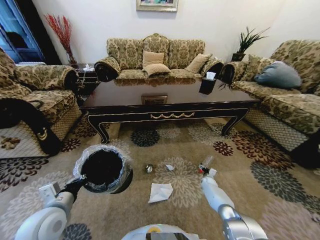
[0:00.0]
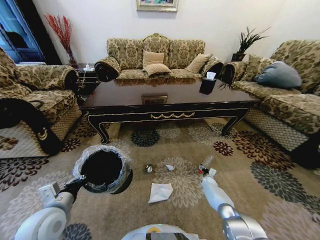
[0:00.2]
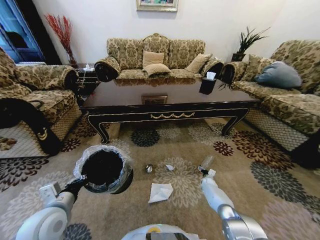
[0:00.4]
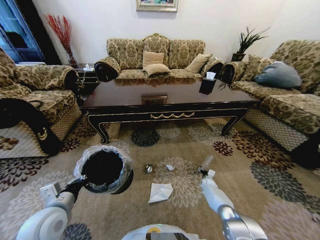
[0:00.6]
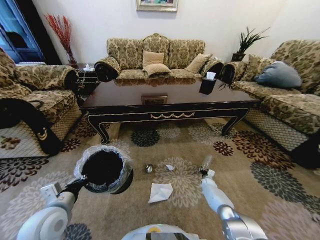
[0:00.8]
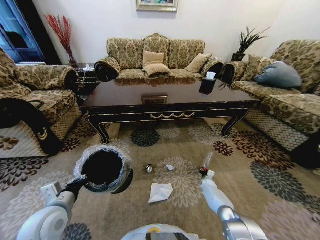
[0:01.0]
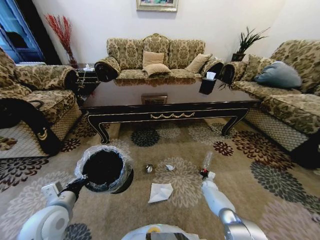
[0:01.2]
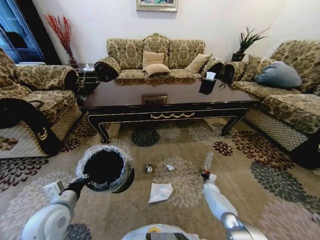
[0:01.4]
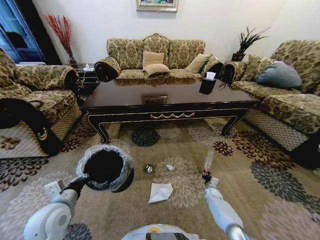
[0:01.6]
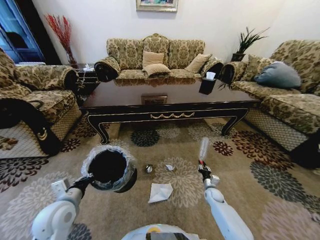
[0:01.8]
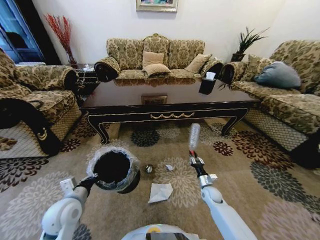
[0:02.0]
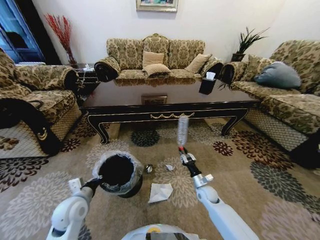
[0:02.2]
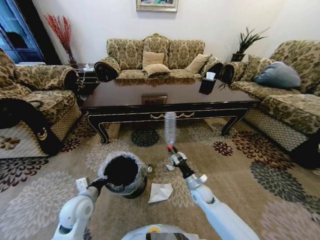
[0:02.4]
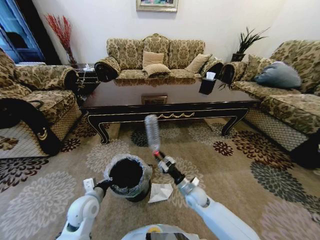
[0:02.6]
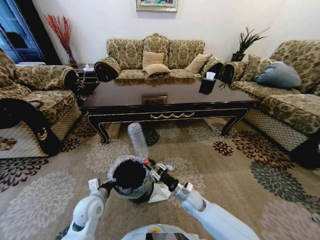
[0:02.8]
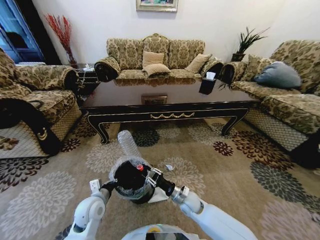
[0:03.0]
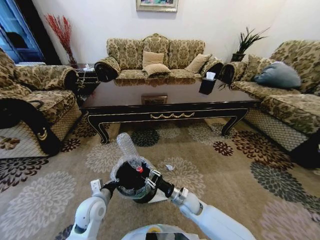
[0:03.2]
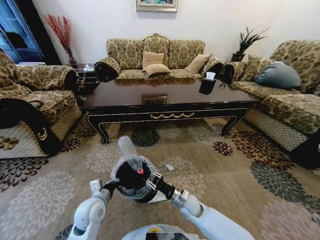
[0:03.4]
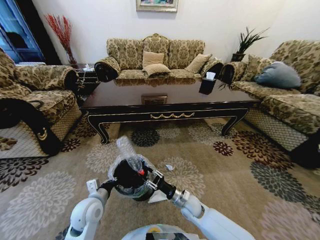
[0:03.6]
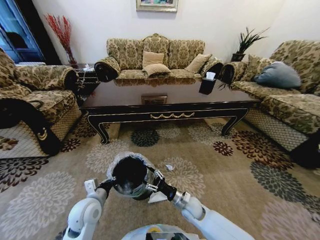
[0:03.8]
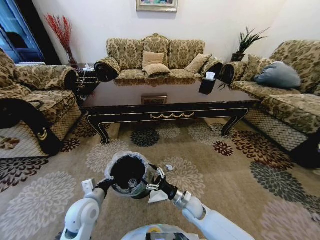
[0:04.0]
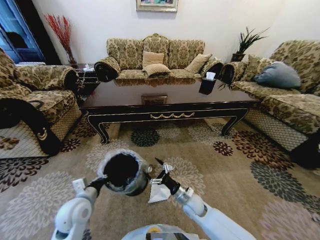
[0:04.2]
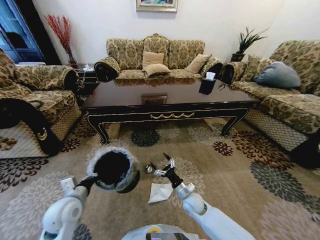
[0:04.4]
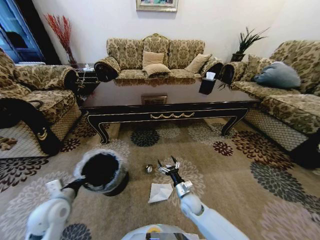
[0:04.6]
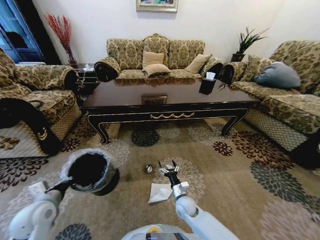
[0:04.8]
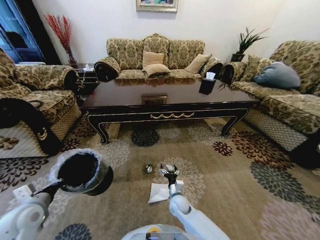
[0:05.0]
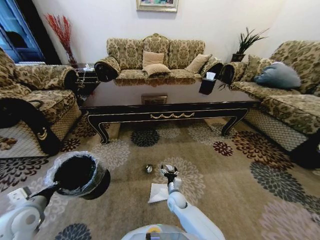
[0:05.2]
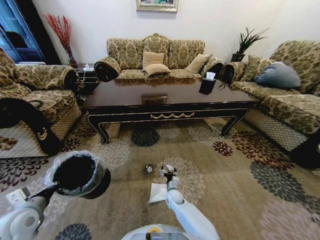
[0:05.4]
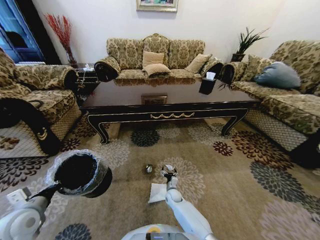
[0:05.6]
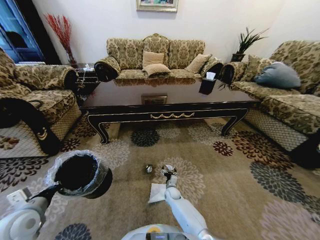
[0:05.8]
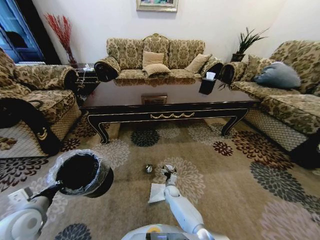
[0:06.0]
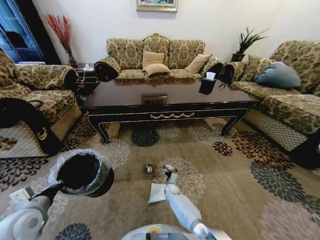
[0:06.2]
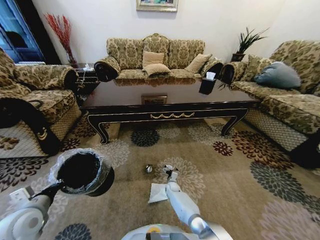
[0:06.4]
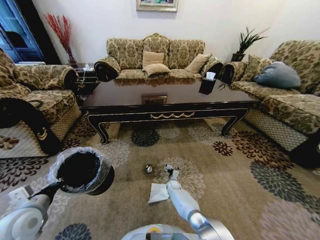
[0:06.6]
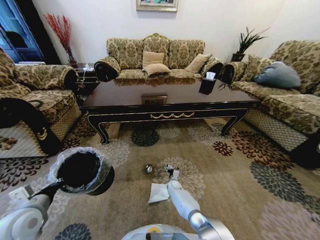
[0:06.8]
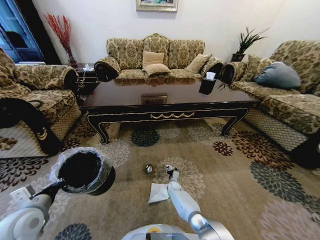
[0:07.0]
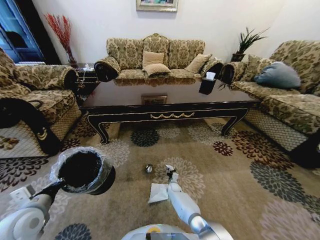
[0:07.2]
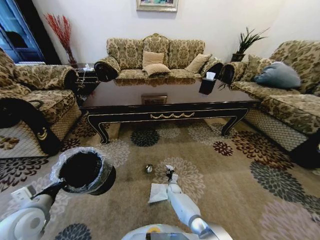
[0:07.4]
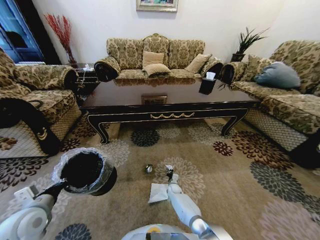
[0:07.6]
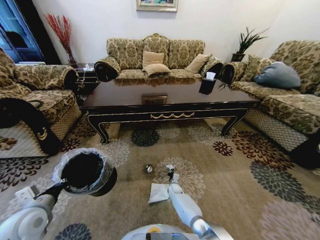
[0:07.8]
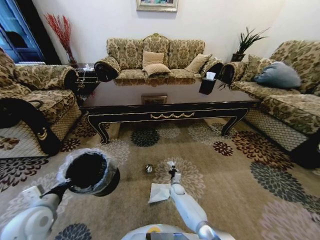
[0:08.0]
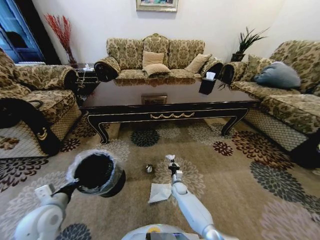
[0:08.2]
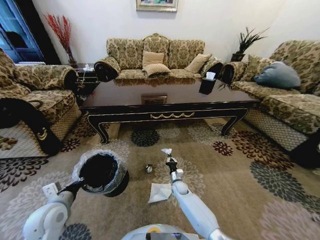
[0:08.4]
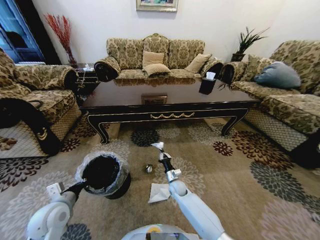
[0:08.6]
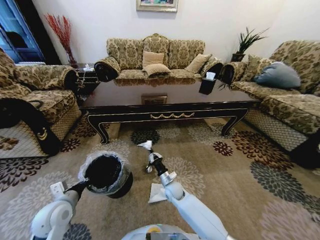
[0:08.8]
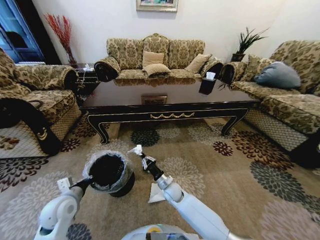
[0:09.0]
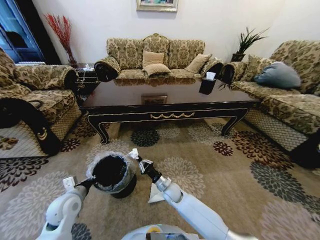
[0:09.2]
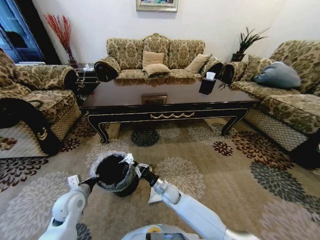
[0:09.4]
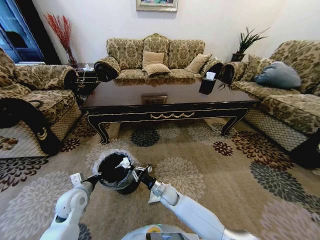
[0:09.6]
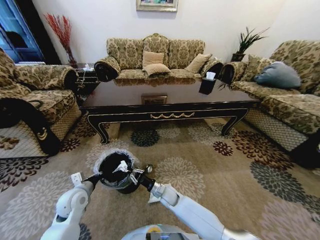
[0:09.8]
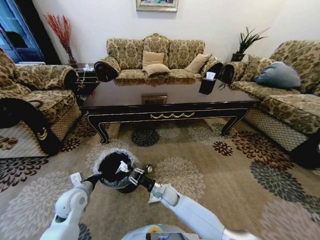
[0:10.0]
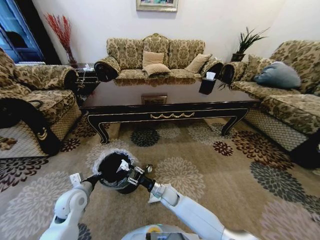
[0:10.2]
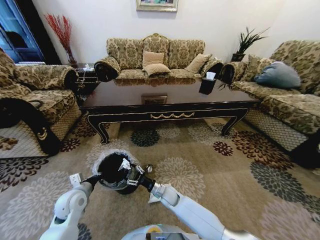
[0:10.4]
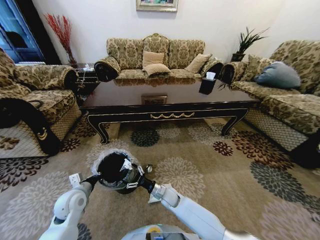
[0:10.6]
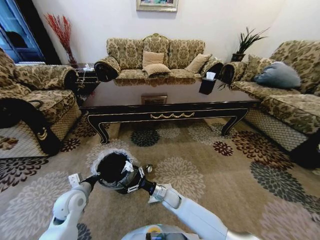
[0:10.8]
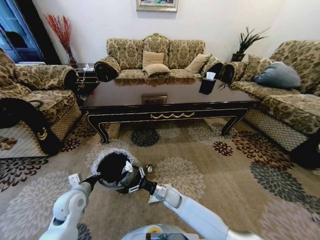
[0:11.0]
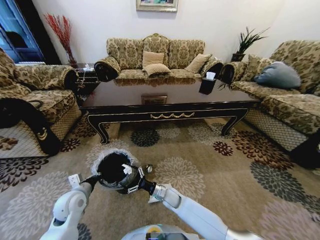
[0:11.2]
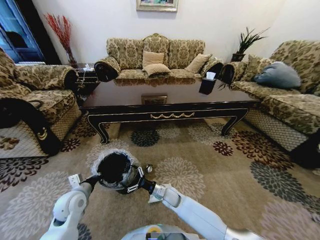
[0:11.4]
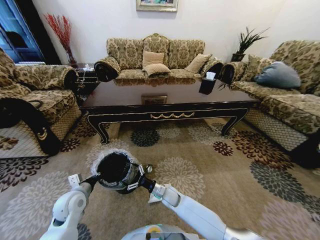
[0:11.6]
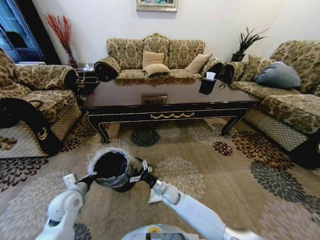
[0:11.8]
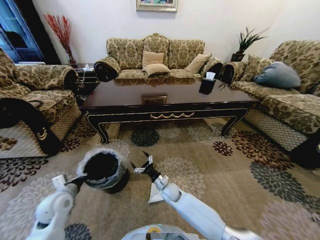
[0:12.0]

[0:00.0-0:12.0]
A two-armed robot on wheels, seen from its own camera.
Task of the whole recording: Move to the front of the table and pick up the trash from the floor, then place it into the trash bin.
0:00.0 to 0:01.6: The right gripper shifts about 5 cm backward, and closes.
0:01.6 to 0:03.0: The right gripper travels to the left, upward and backward by approximately 30 cm, while the left gripper travels downward and to the right by some 10 cm.
0:03.0 to 0:04.4: The left gripper travels to the left and upward by about 10 cm. Meanwhile the right gripper opens.
0:04.4 to 0:06.0: The left gripper shifts about 10 cm to the left. Meanwhile the right gripper moves downward, forward and to the left, roughly 20 cm.
0:06.0 to 0:07.6: The right gripper closes.
0:07.6 to 0:09.0: The left gripper shifts by approximately 10 cm. The right gripper is displaced upward by roughly 15 cm.
0:09.0 to 0:10.4: The right gripper opens its fingers.
0:10.4 to 0:12.0: The left gripper moves approximately 5 cm.

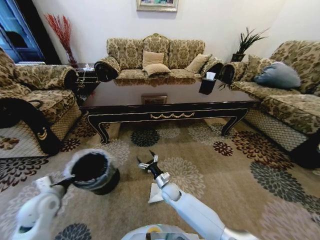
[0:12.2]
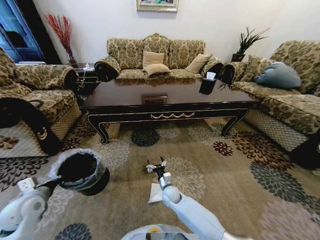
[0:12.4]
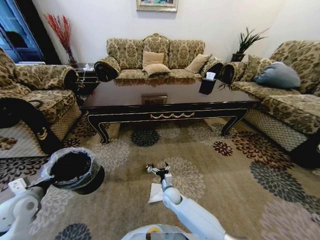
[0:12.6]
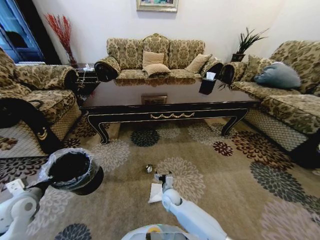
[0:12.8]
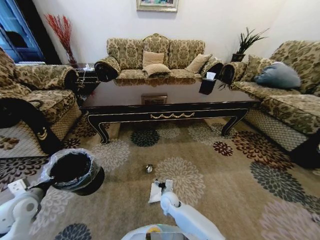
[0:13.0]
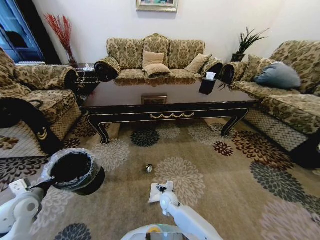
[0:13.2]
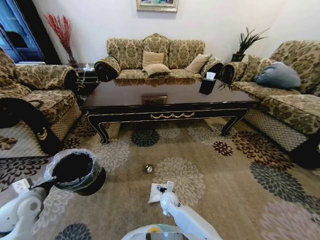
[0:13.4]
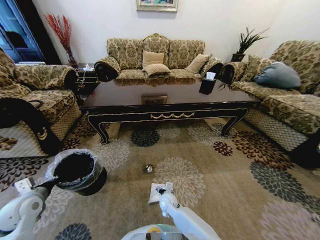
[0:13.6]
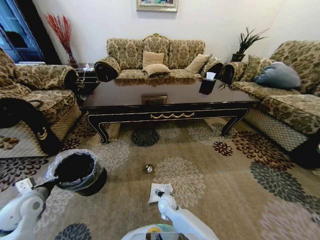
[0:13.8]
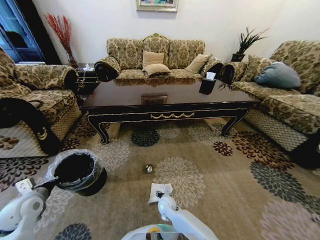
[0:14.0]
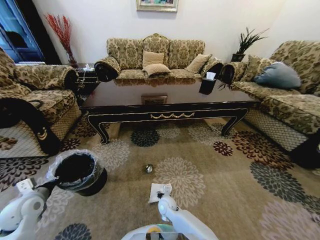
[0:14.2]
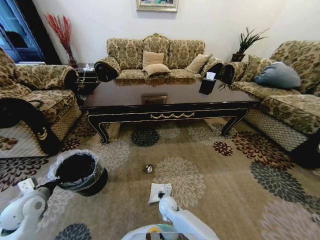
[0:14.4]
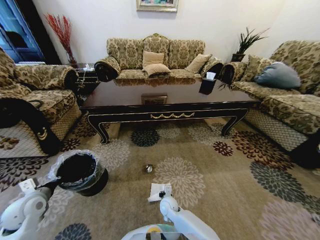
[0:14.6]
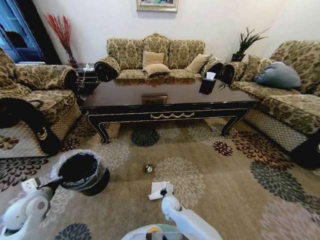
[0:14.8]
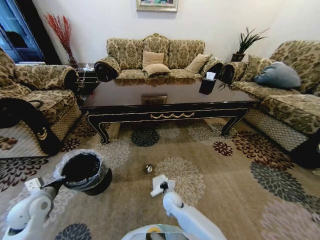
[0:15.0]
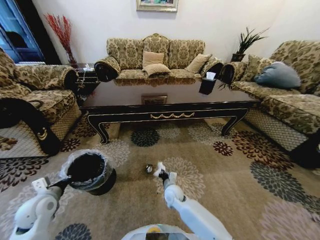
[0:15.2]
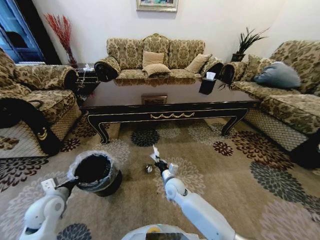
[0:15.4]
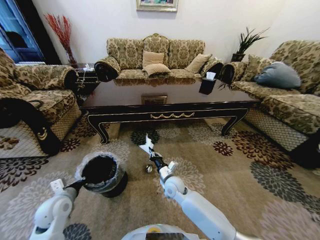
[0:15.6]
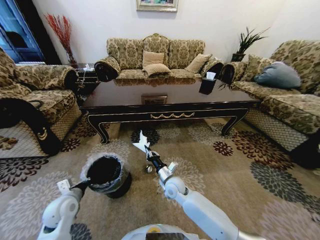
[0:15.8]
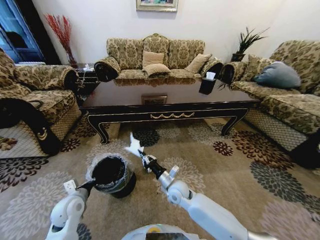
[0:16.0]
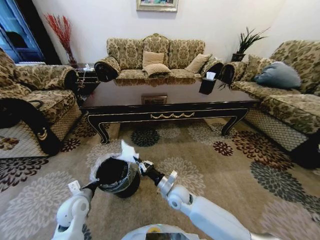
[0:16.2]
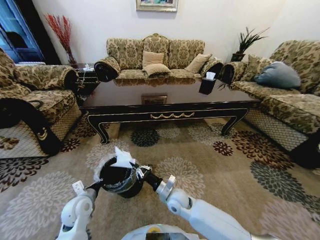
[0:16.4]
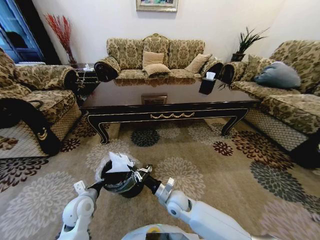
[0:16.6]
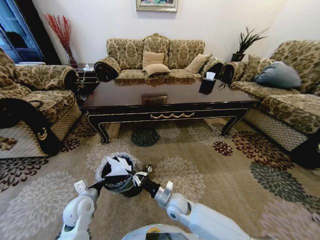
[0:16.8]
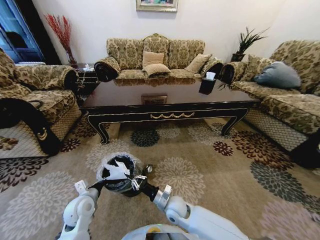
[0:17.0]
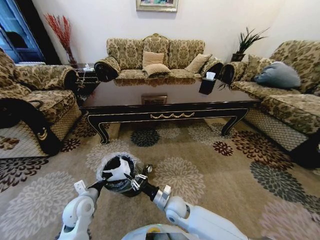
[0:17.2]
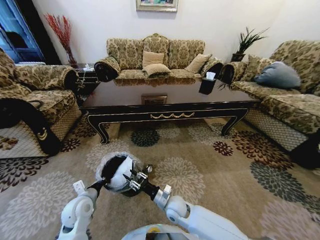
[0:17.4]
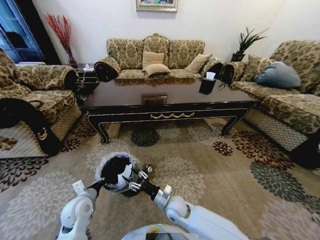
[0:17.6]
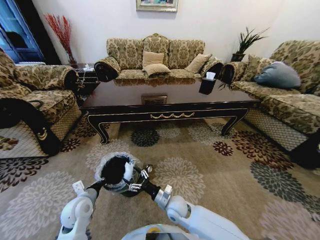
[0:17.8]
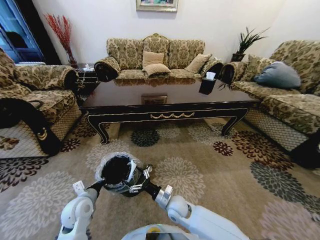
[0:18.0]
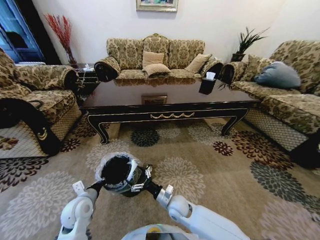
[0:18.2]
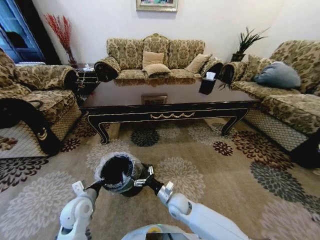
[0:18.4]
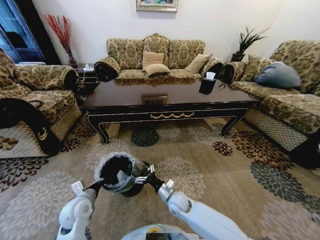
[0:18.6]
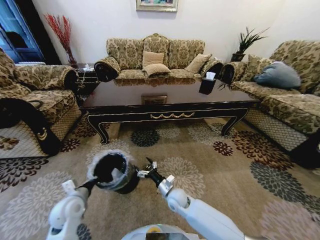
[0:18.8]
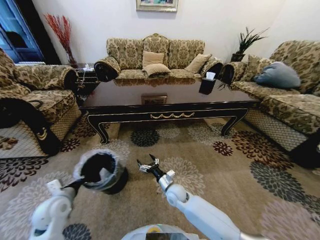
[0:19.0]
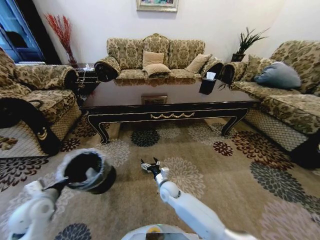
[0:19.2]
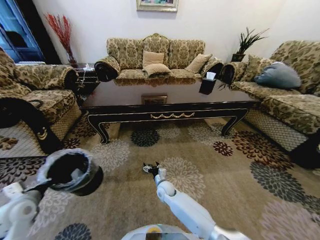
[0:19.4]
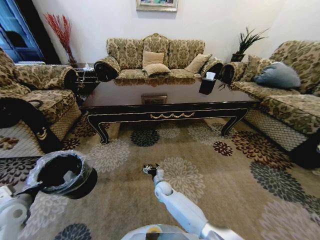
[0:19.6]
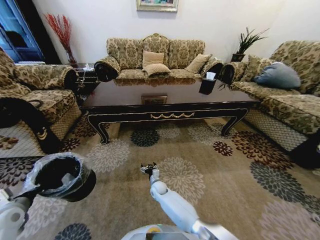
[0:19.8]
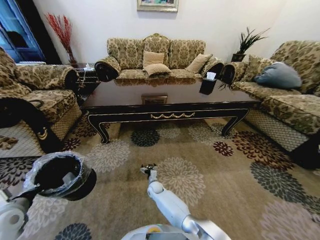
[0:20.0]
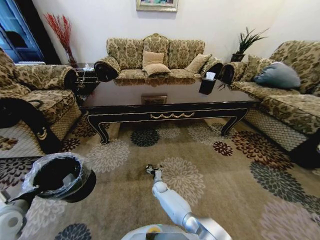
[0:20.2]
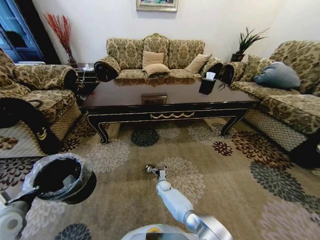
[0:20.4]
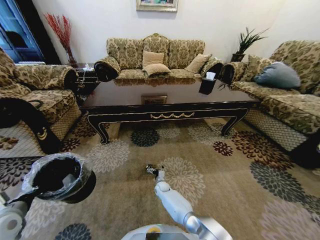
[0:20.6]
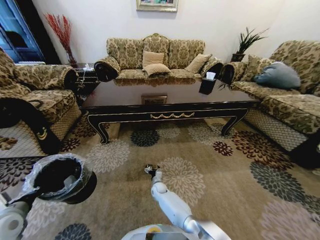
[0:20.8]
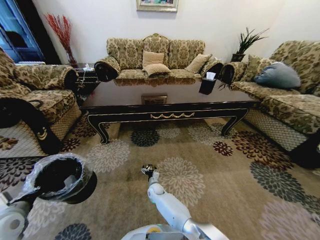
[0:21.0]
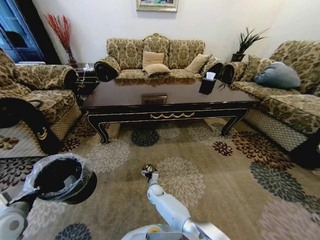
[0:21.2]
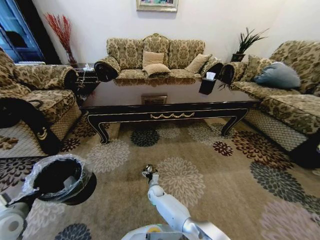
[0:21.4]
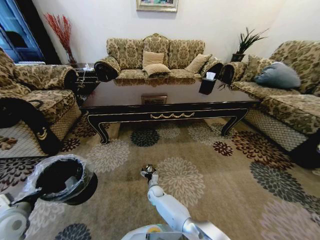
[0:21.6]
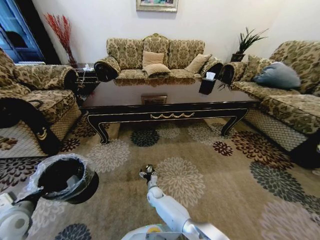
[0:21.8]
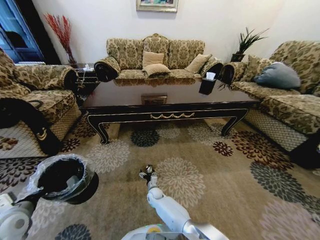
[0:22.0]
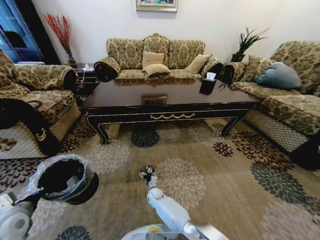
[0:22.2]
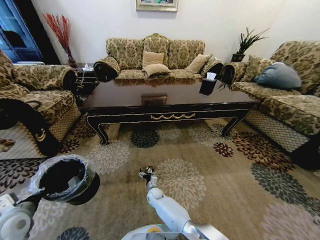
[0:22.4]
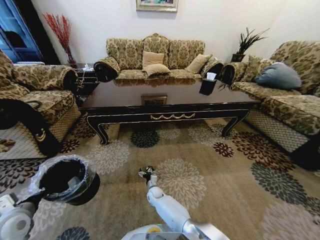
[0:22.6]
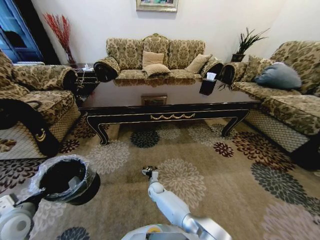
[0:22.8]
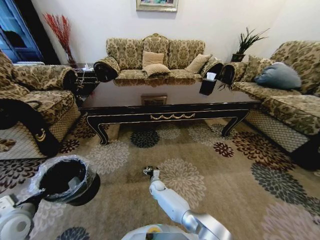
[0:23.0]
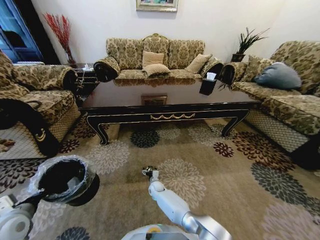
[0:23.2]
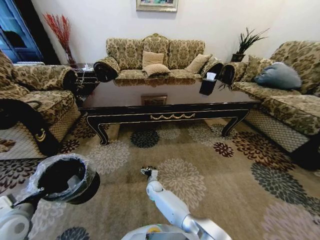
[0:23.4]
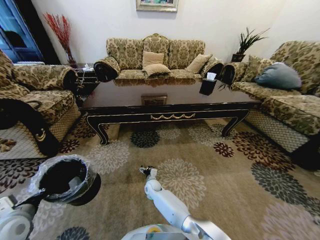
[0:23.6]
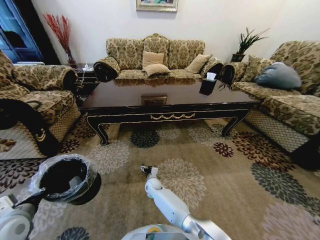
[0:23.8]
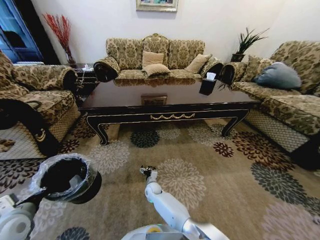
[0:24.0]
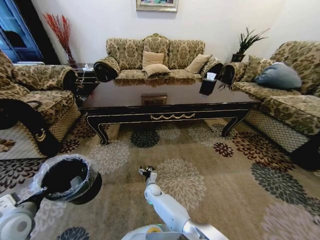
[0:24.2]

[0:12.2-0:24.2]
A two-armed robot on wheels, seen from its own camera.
Task of the whole recording: Move to the front of the table and pick up the trash from the floor, then place it into the trash bin.
0:12.2 to 0:13.8: The right gripper ends up some 5 cm from where it was.
0:13.8 to 0:15.2: The right gripper shifts roughly 5 cm upward, and closes its fingers.
0:15.2 to 0:16.6: The left gripper is displaced to the right by about 10 cm, while the right gripper is displaced upward by about 5 cm.
0:16.6 to 0:18.2: The right gripper opens up.
0:18.2 to 0:19.8: The left gripper travels to the left by roughly 20 cm. Meanwhile the right gripper heads forward, downward and to the left, covering some 20 cm.
0:21.2 to 0:22.6: The grippers move only a little.
